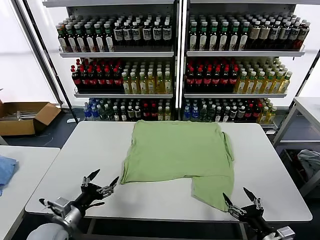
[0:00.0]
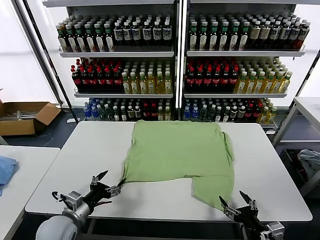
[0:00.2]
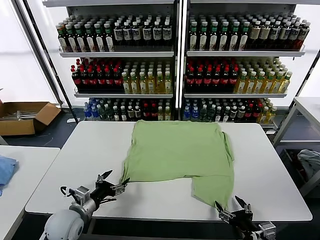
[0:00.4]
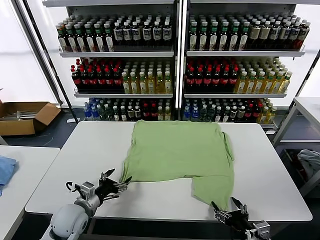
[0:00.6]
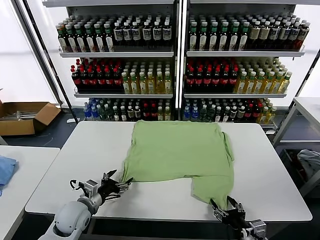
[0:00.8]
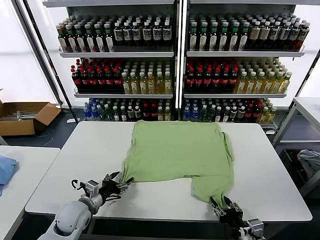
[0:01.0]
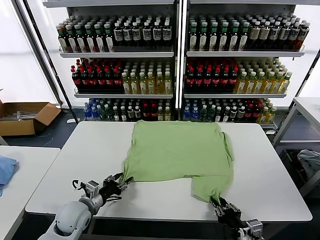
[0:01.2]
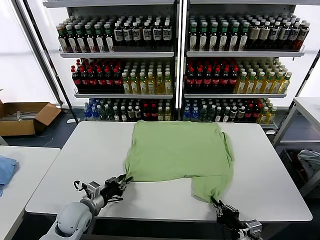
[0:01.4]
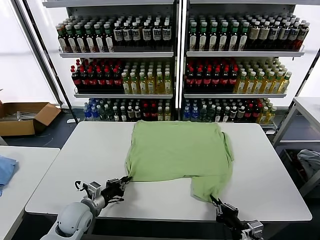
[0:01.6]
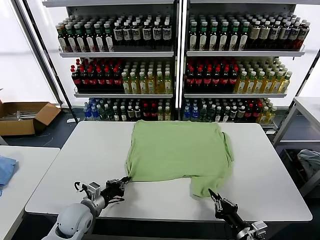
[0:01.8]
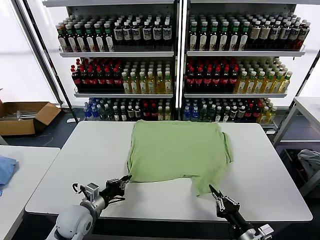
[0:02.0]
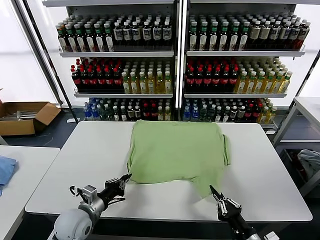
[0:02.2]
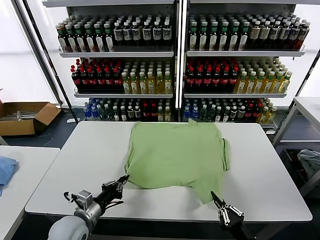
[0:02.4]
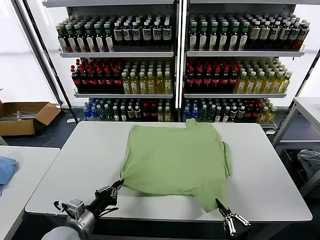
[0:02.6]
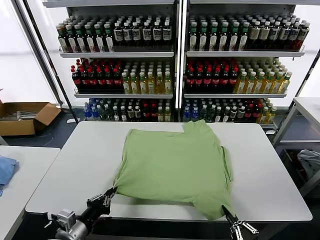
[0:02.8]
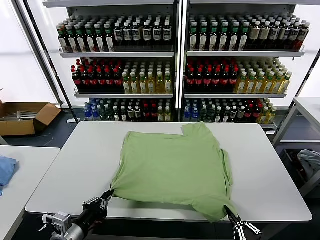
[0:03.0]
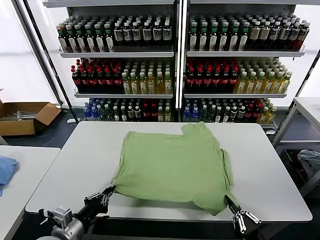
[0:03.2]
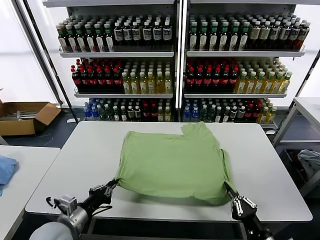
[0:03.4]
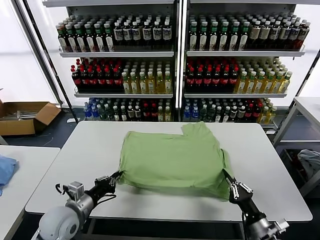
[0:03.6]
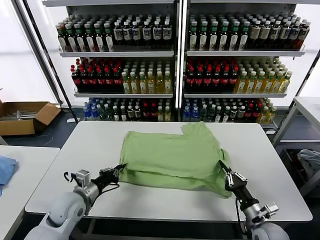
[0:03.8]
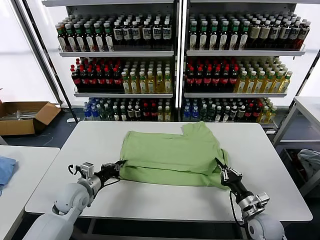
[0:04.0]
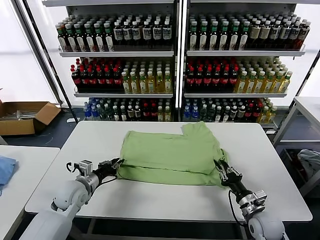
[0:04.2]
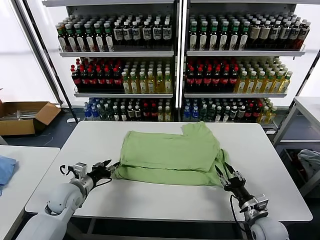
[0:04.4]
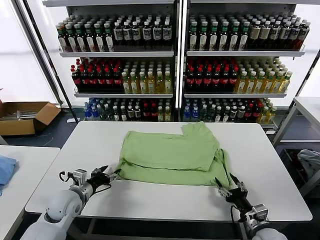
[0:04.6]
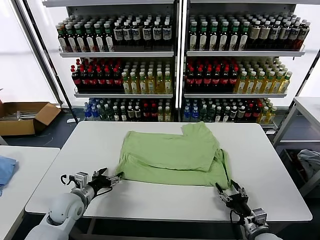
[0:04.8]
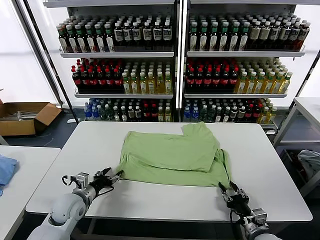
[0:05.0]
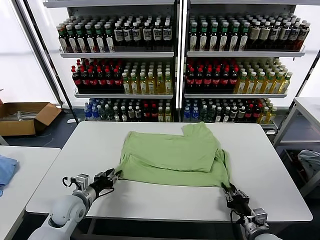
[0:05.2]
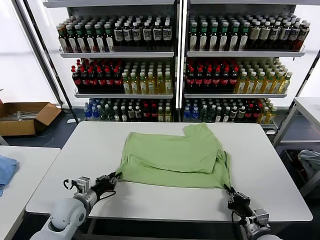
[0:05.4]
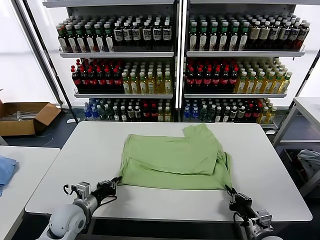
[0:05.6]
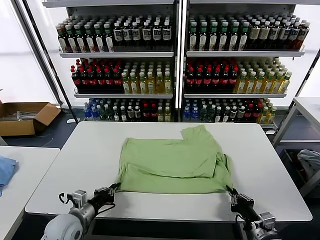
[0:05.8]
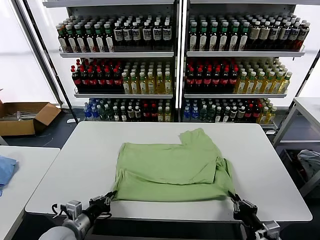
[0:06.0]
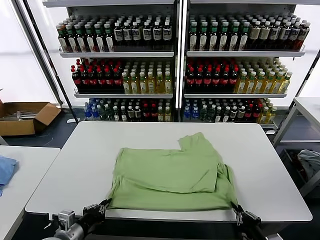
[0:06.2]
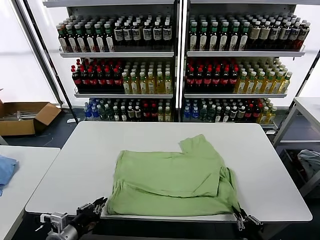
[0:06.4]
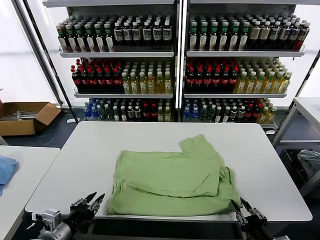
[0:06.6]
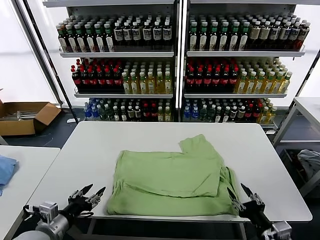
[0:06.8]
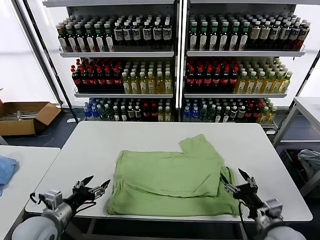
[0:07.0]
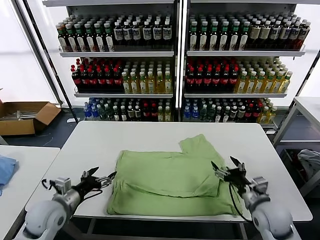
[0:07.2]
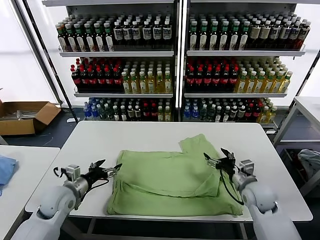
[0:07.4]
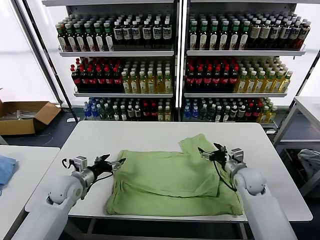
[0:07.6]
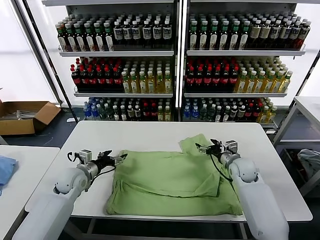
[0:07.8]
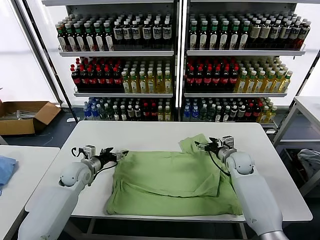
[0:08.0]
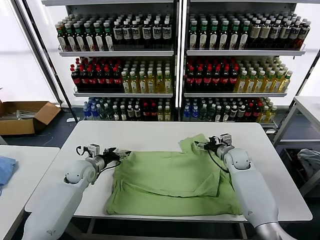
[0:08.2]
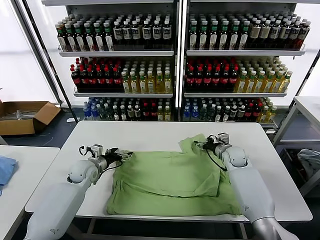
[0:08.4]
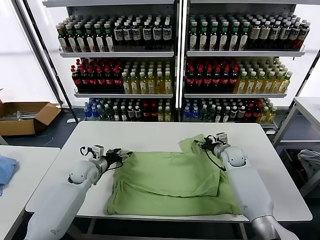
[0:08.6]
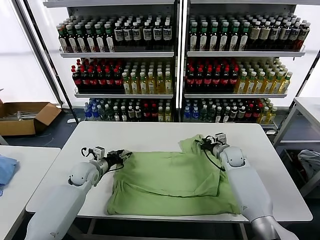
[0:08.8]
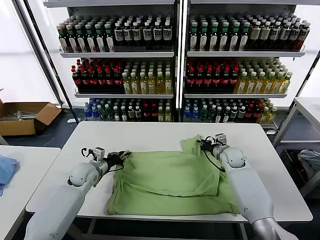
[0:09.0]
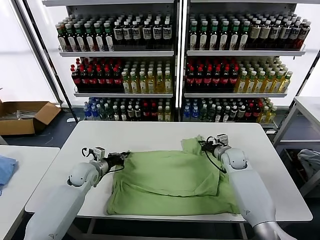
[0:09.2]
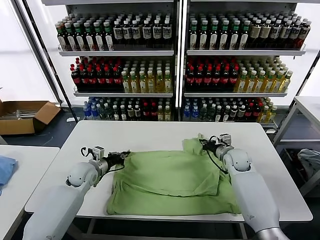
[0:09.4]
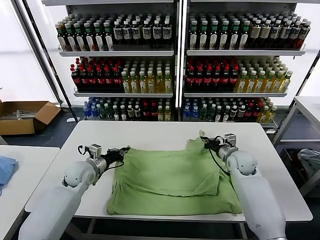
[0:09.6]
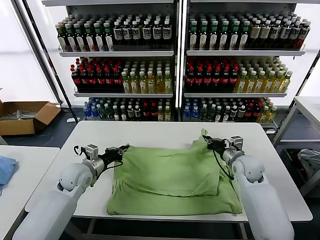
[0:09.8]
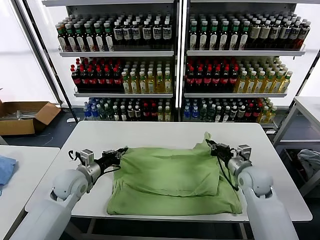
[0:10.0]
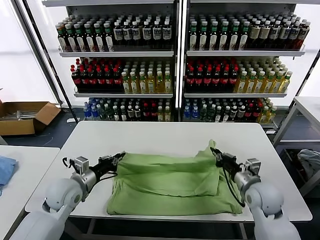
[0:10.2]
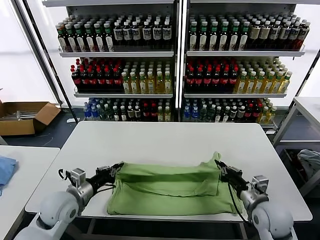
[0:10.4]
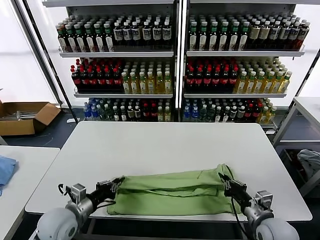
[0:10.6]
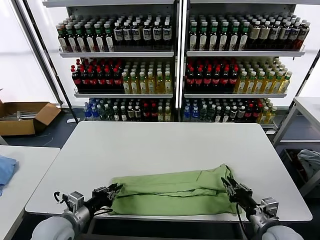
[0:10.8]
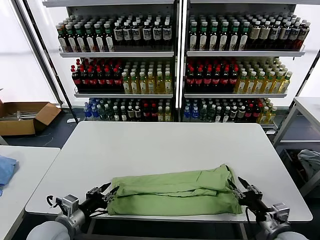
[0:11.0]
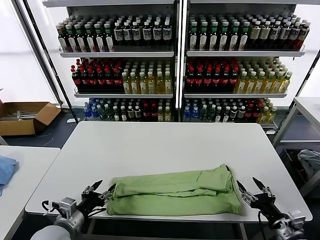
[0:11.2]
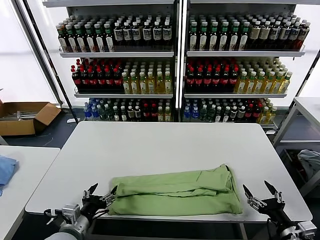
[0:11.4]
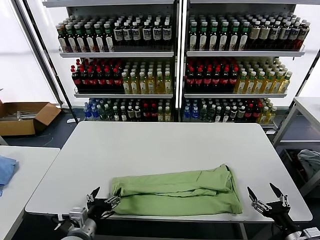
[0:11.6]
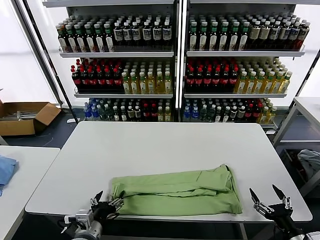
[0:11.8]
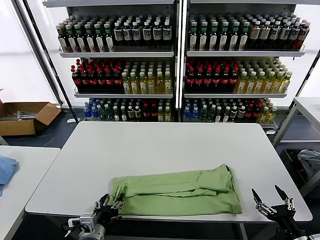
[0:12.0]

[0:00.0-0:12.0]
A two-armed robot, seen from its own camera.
Task of the whole recording: fold and organize the clothes.
Step, 0:00.0 to 0:01.6: use both grippers simultaneously to clamp the lower edge of the clothing fabric.
Step, 0:01.8 to 0:04.4: use both grippers to drag the lower edge of the fabric forward and fold it over the upper edge.
Step, 0:04.6 to 0:06.6: Drag the clothes downward with both gripper.
Step, 0:06.8 to 0:09.2: use both grippers simultaneously to clamp the upper edge of the clothing fabric.
Step, 0:09.4 to 0:10.8: use both grippers to drag the upper edge of the fabric backward and fold it over the lower edge.
0:01.6 to 0:03.0: The right gripper goes about 10 cm backward; the left gripper goes some 15 cm backward and upward.
0:03.0 to 0:04.4: Both grippers travel together forward, some 20 cm. The left gripper opens. Meanwhile the right gripper opens up.
0:04.4 to 0:06.0: The grippers both shift backward by roughly 10 cm. The right gripper closes its fingers. Meanwhile the left gripper closes up.
0:06.0 to 0:07.6: The left gripper is displaced forward by about 15 cm, and opens up, while the right gripper shifts roughly 25 cm forward, and opens.
0:07.6 to 0:09.0: The left gripper moves forward, about 5 cm, and closes its fingers. The right gripper travels forward by about 10 cm, and closes up.
0:09.0 to 0:10.4: The left gripper goes approximately 15 cm backward and upward, while the right gripper heads backward, covering about 25 cm.
0:10.4 to 0:12.0: The left gripper shifts about 15 cm backward, to the right and downward, and opens, while the right gripper is displaced backward and to the right by roughly 20 cm, and opens.

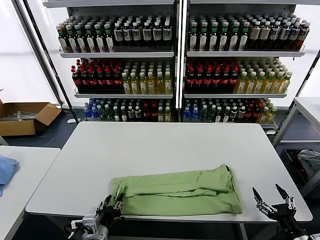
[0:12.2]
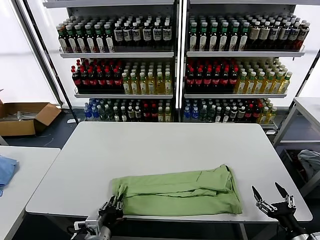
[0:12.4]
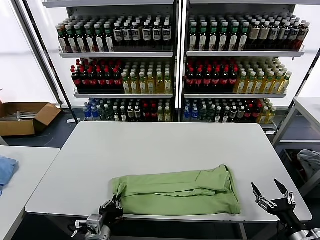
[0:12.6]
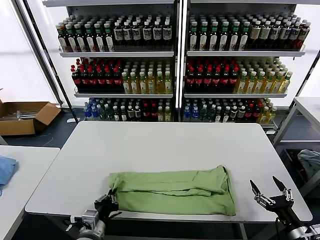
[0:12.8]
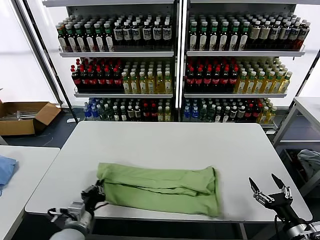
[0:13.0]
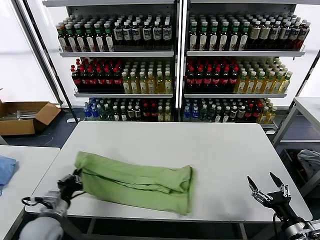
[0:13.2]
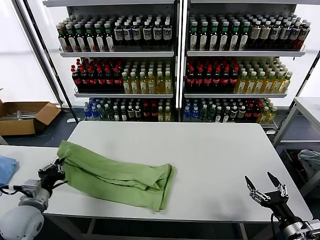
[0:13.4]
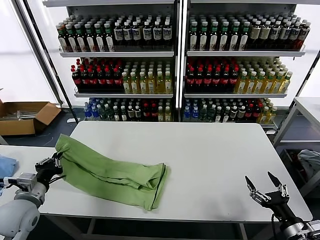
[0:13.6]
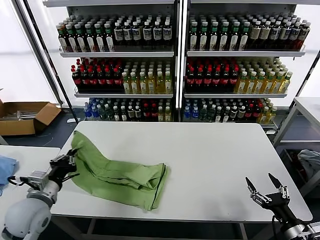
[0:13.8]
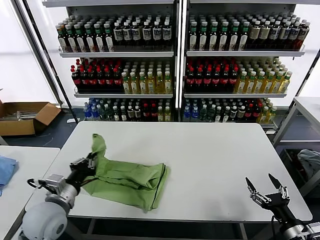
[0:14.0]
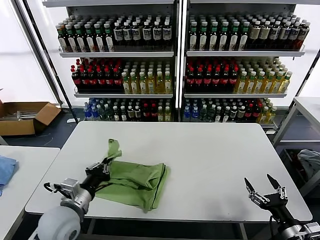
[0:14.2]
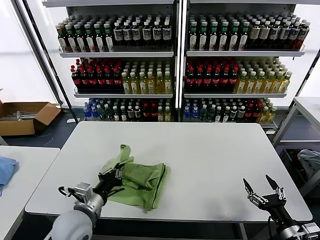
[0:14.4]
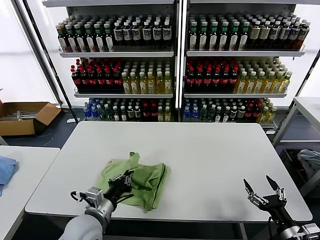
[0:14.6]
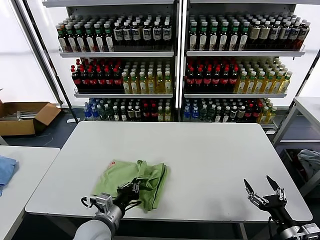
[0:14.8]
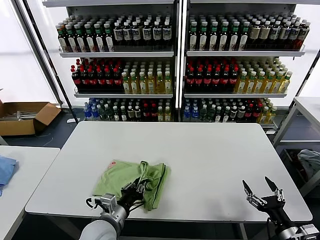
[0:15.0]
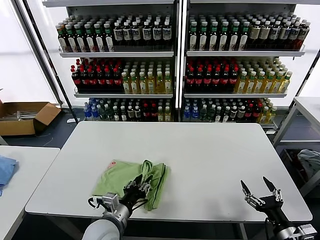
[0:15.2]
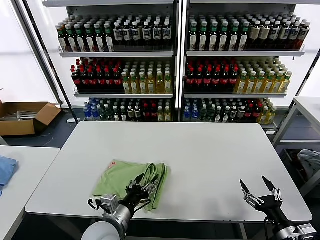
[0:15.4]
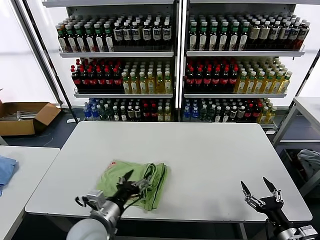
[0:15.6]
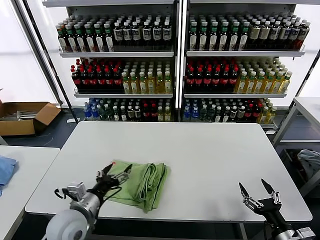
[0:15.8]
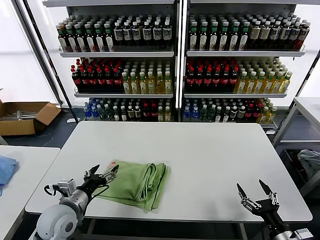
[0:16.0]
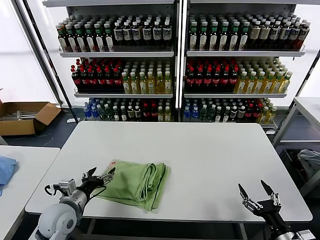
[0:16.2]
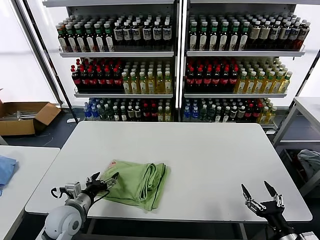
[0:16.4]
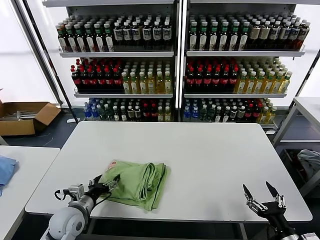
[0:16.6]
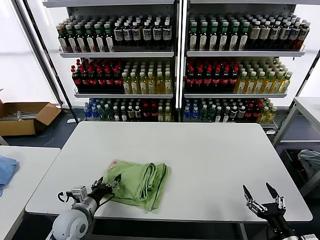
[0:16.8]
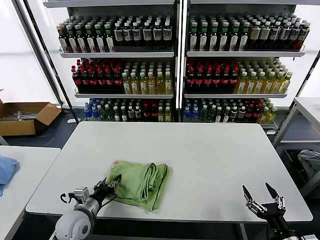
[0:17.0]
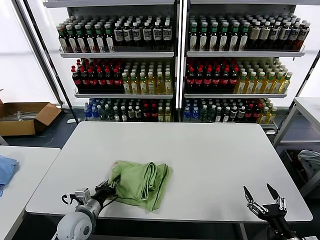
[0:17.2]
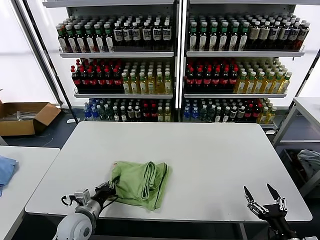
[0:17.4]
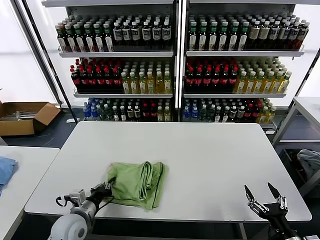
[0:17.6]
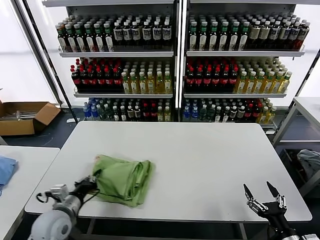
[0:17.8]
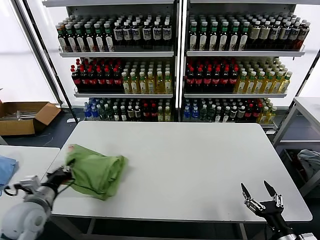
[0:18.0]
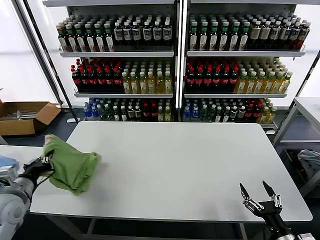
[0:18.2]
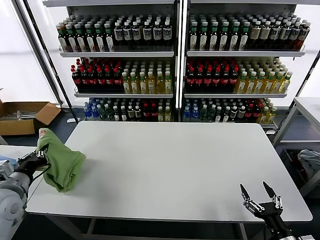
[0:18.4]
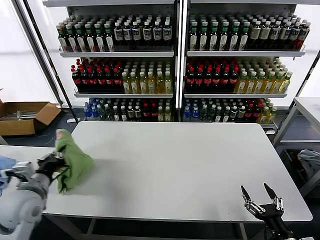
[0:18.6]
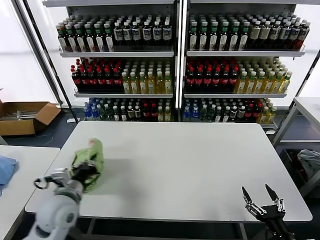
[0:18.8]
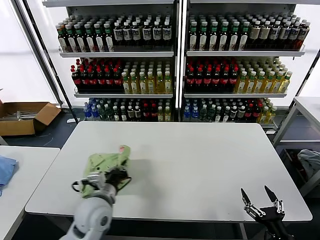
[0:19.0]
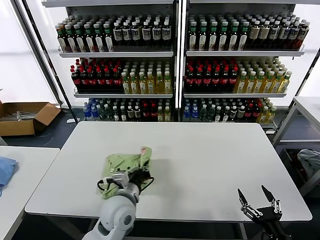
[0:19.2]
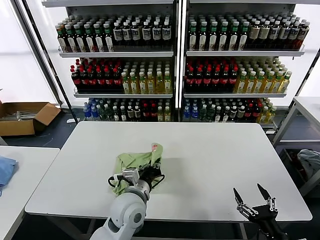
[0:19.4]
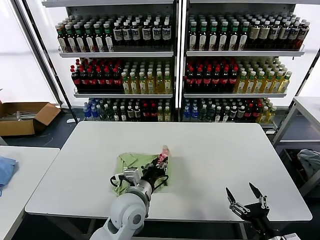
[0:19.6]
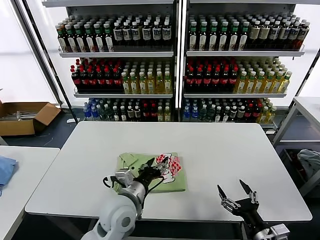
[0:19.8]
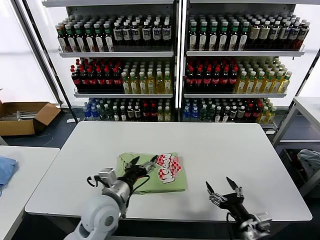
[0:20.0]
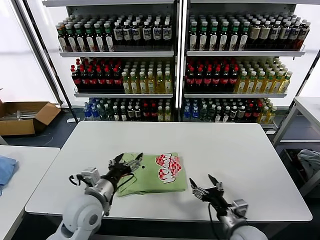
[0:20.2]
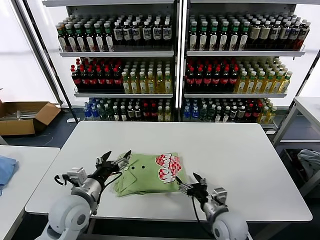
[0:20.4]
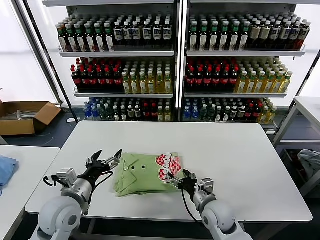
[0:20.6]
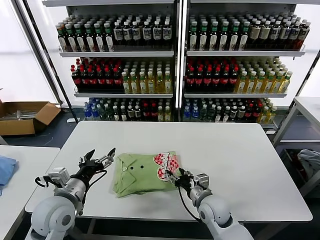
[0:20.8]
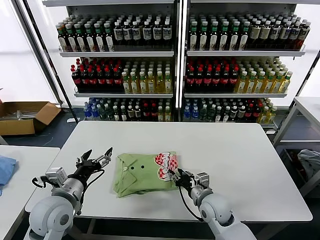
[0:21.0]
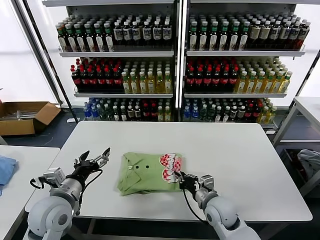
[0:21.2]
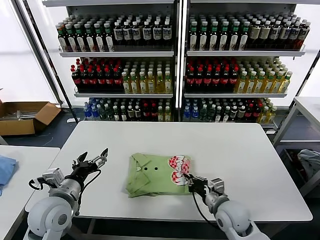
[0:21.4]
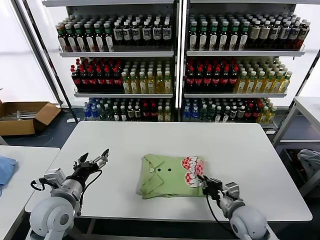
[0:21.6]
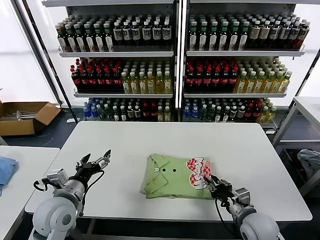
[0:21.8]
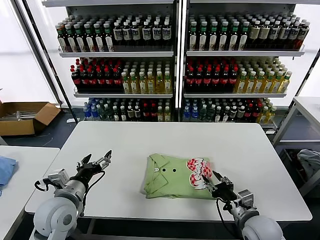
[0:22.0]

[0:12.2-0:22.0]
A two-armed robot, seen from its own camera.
Task of the whole recording: fold and organize the clothes.
Step, 0:12.6 to 0:15.4: use the left gripper to drag the left edge of the fabric to the left and folds it over the right edge.
Step, 0:15.6 to 0:19.6: Flip the folded clothes over with left gripper.
0:12.2 to 0:13.6: The left gripper shifts roughly 25 cm to the left, forward and upward, and closes up.
0:13.6 to 0:15.0: The left gripper heads to the right, covering about 20 cm.
0:15.0 to 0:16.4: The left gripper shifts about 10 cm to the left, and opens its fingers.
0:16.4 to 0:17.8: The left gripper closes.
0:17.8 to 0:19.2: The left gripper goes approximately 20 cm to the right.
0:19.2 to 0:20.6: The left gripper travels to the left by some 10 cm, and opens. The right gripper shifts approximately 25 cm forward and to the left.
0:20.6 to 0:22.0: The right gripper moves to the right and backward, approximately 10 cm, and closes.
